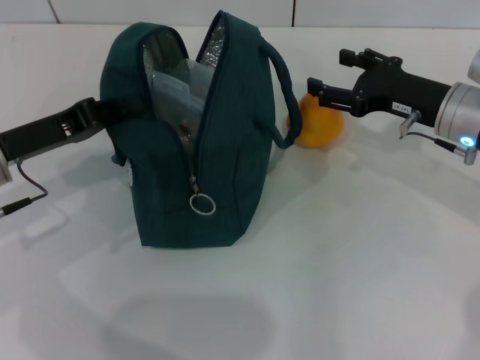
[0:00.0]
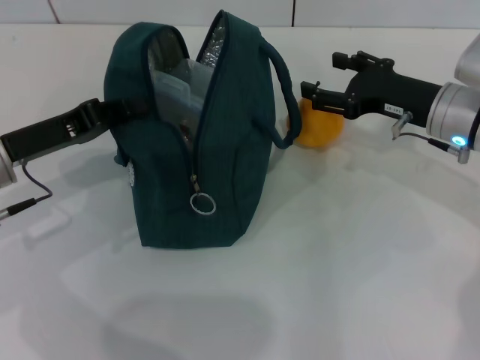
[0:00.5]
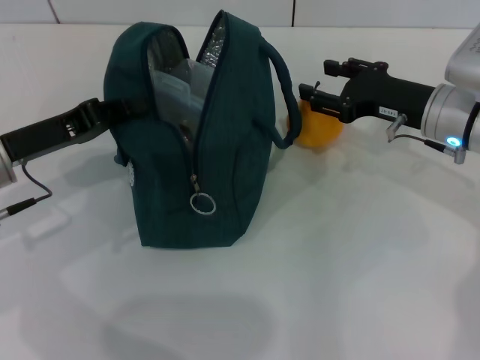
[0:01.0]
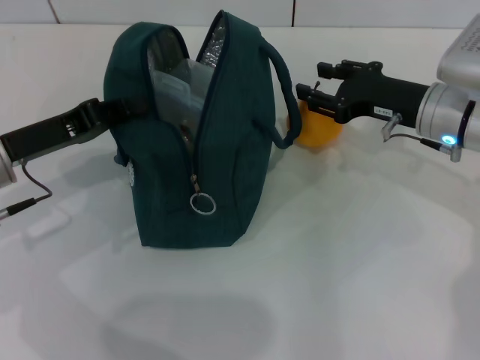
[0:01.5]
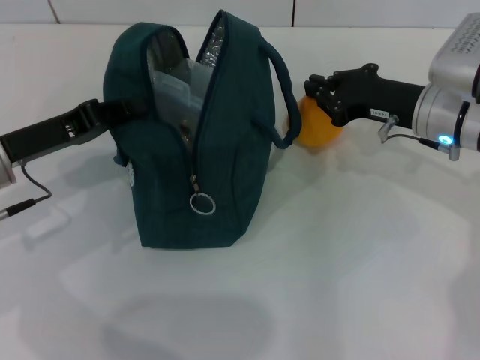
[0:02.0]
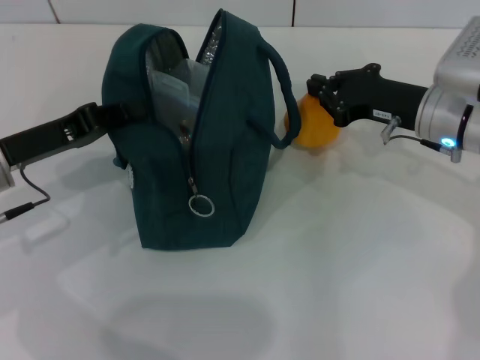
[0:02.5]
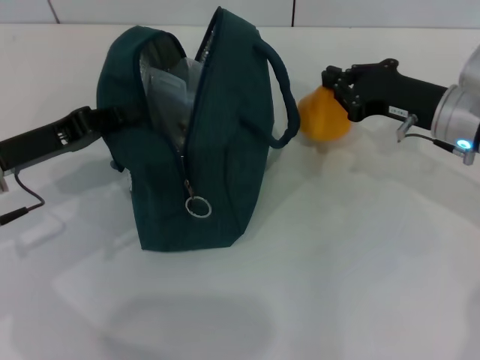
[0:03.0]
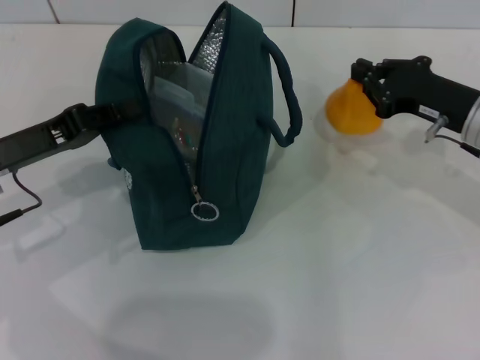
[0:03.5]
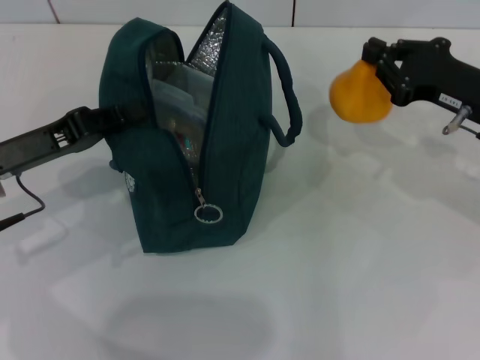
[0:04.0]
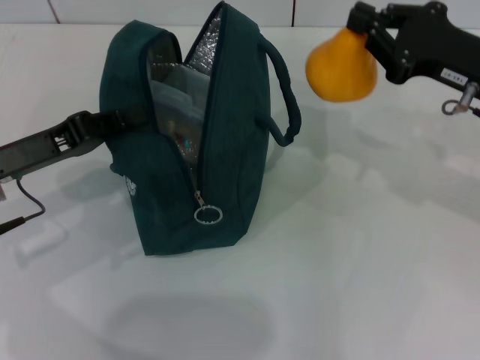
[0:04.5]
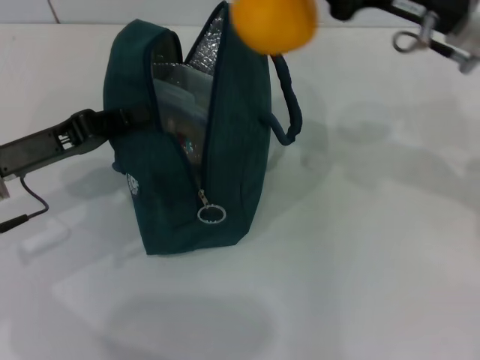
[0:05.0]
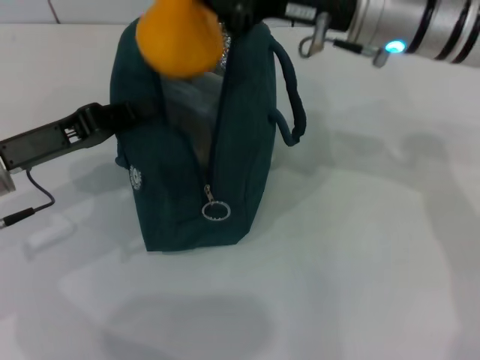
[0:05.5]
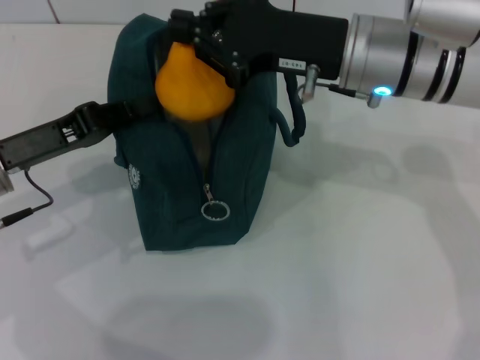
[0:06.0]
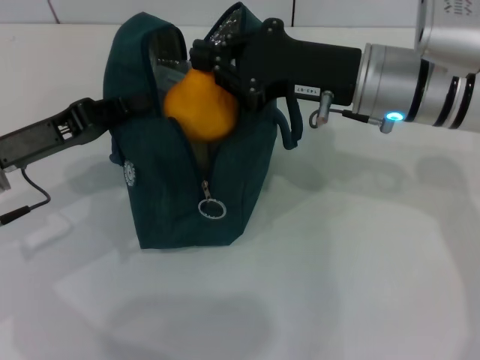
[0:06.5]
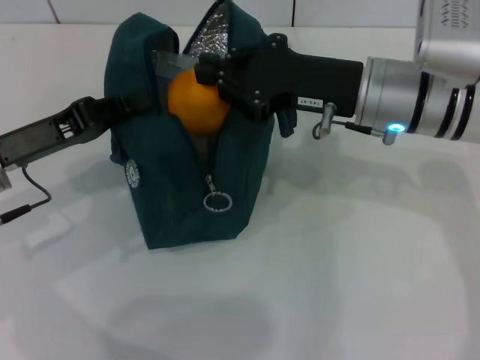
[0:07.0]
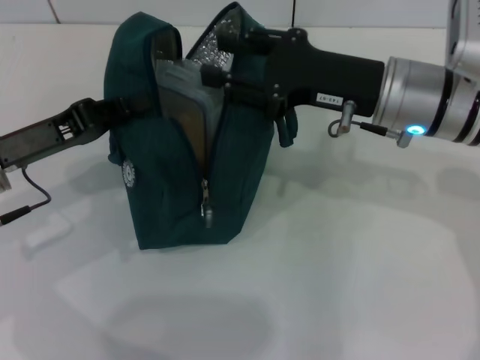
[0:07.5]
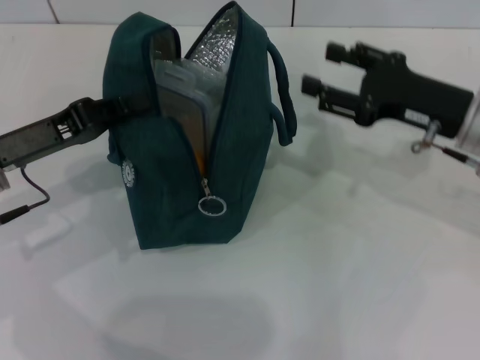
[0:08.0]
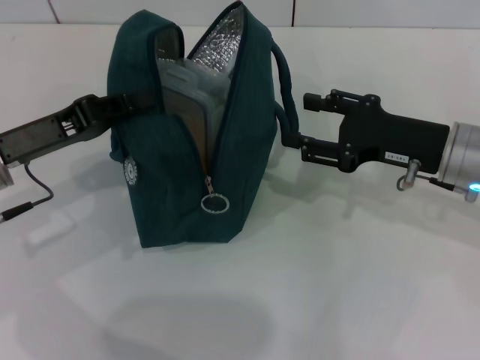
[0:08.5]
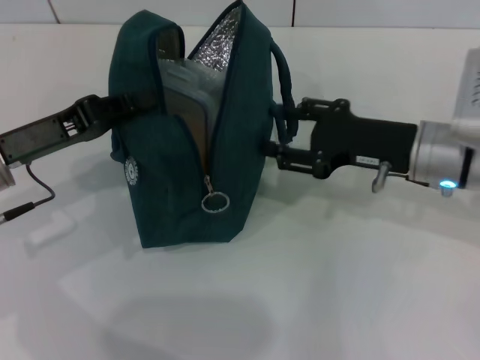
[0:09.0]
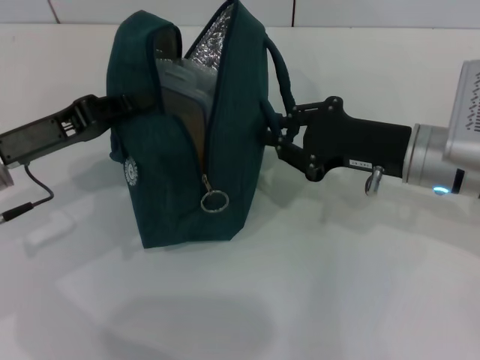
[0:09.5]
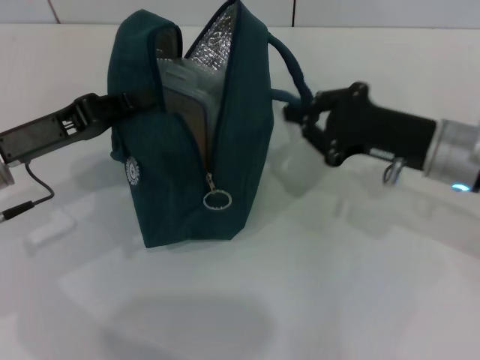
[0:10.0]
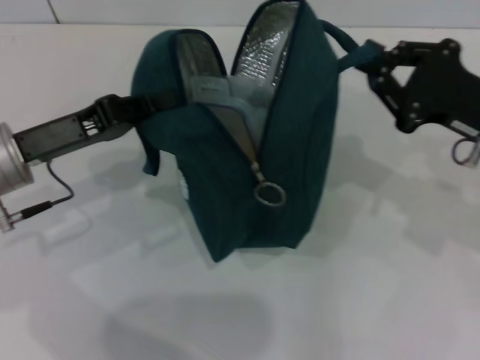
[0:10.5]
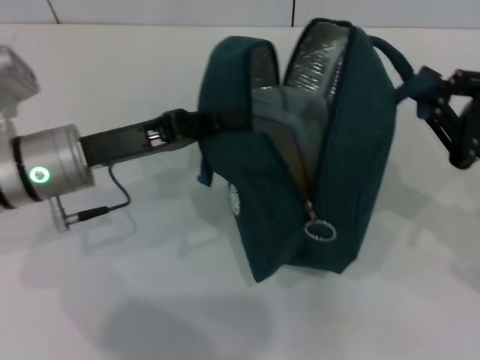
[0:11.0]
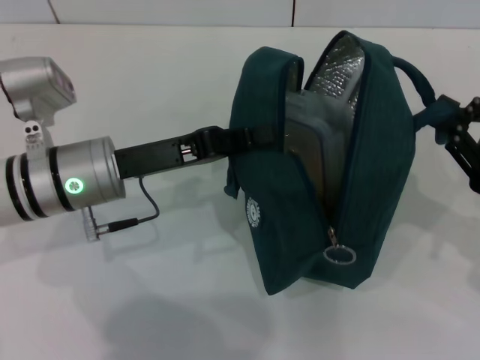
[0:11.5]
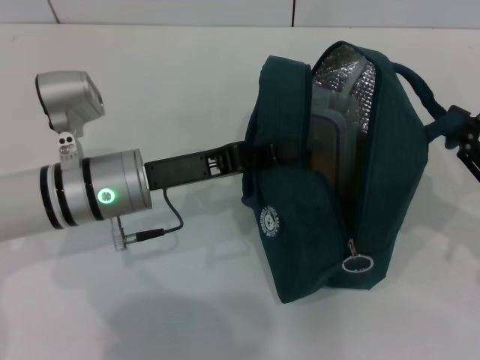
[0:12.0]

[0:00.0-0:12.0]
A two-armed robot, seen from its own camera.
Step, 0:00.0 to 0:02.0: Grab the pear with your right hand.
0:00.0 to 0:02.0: The right gripper closes its fingers.
0:02.0 to 0:04.0: The right gripper travels to the right by about 5 cm.
0:04.0 to 0:06.0: The right gripper shifts approximately 15 cm to the left and upward.
0:06.0 to 0:08.0: The right gripper is displaced to the right and downward by approximately 15 cm, and opens up.
0:08.0 to 0:10.0: The right gripper closes up.
0:10.0 to 0:12.0: The right gripper travels to the right and backward by about 15 cm; the left gripper travels to the right by about 10 cm.

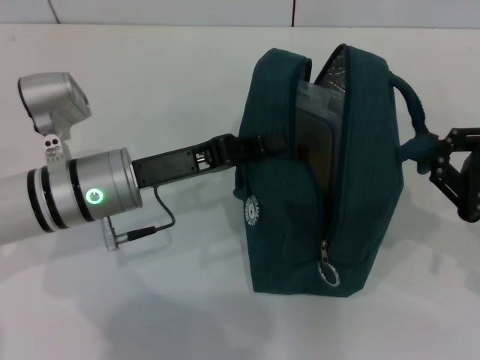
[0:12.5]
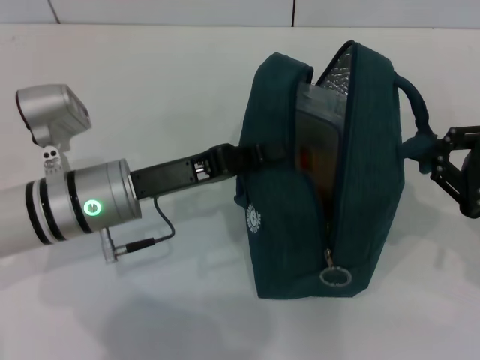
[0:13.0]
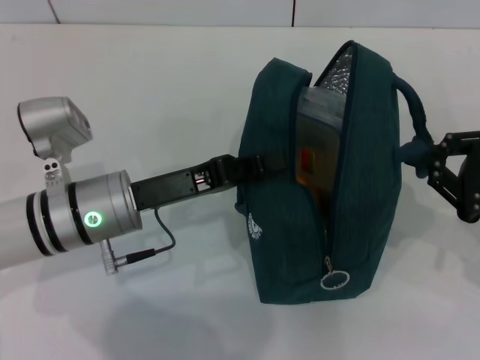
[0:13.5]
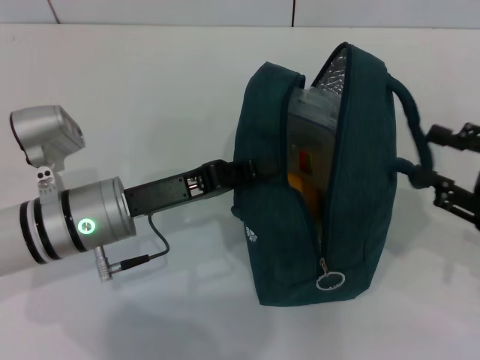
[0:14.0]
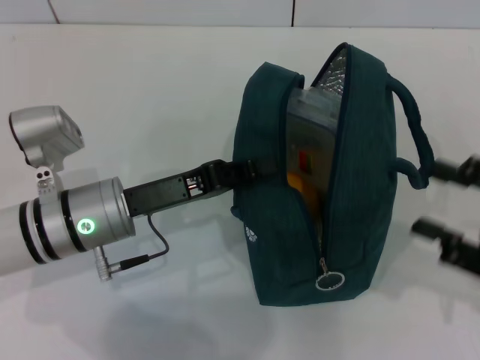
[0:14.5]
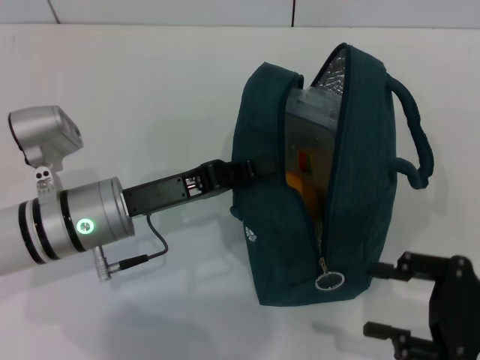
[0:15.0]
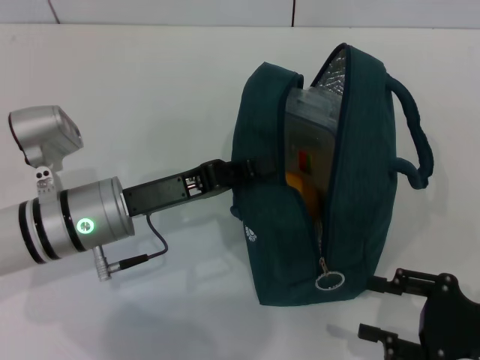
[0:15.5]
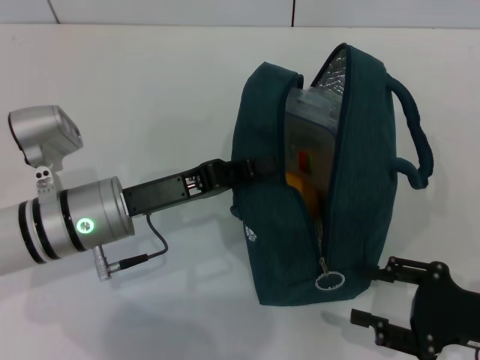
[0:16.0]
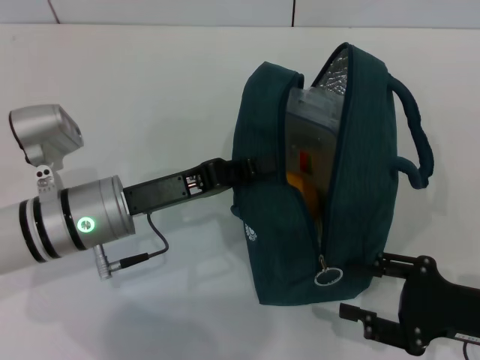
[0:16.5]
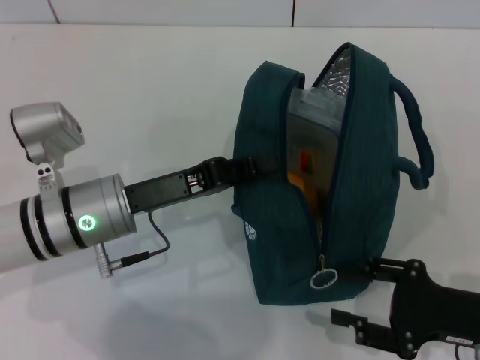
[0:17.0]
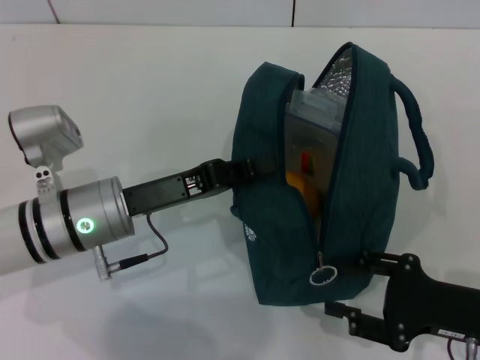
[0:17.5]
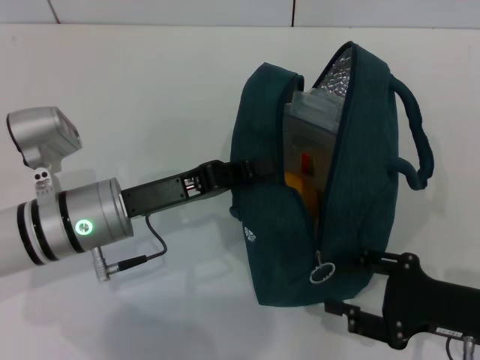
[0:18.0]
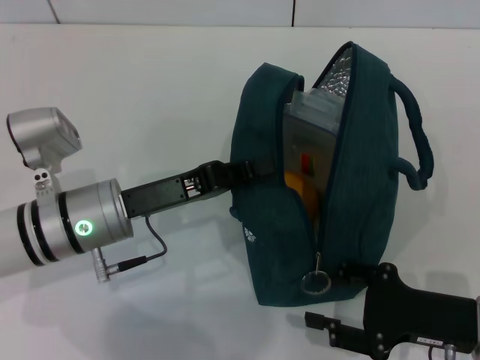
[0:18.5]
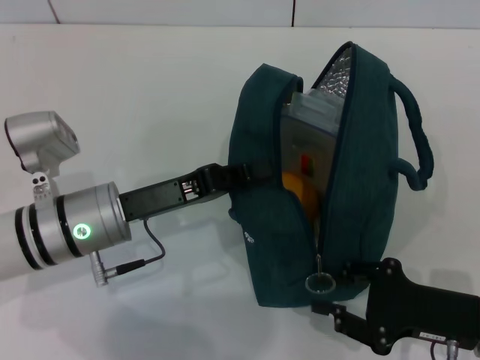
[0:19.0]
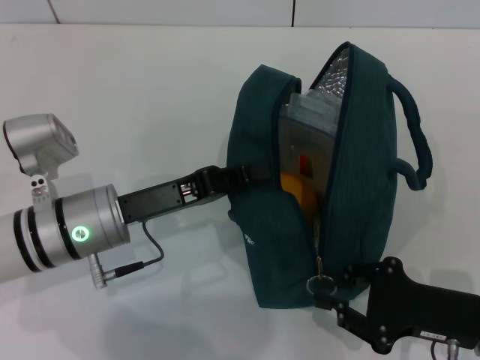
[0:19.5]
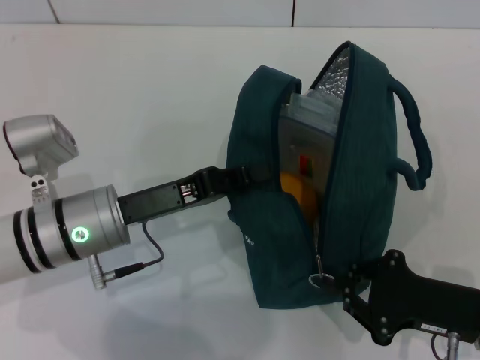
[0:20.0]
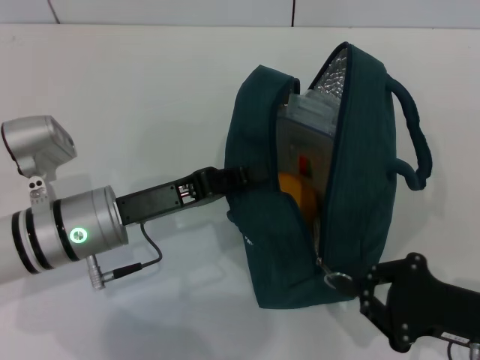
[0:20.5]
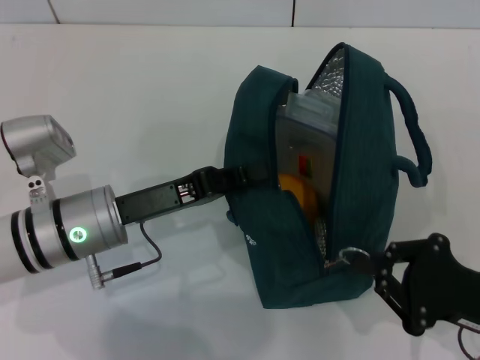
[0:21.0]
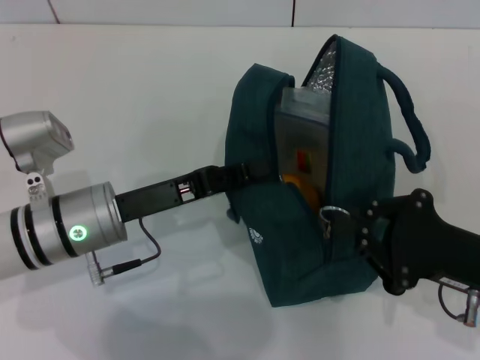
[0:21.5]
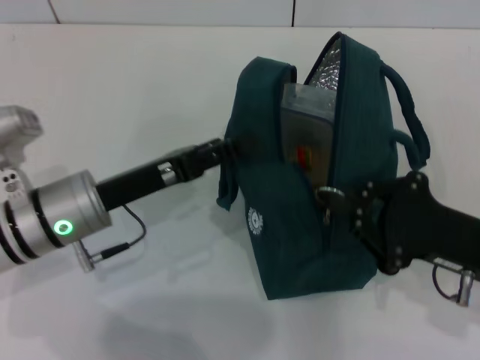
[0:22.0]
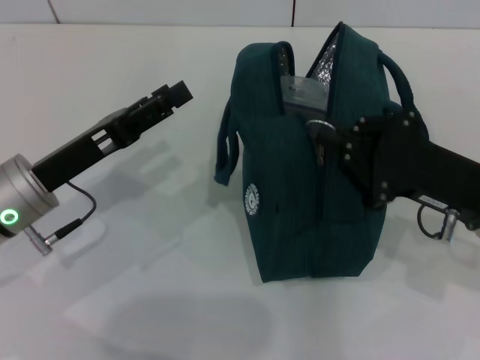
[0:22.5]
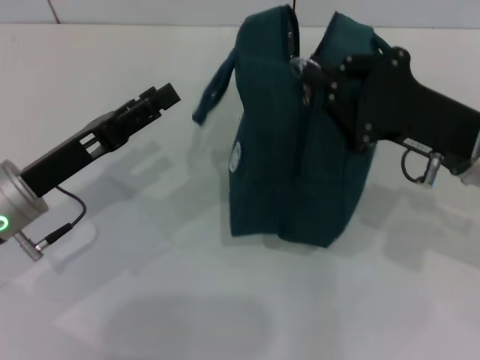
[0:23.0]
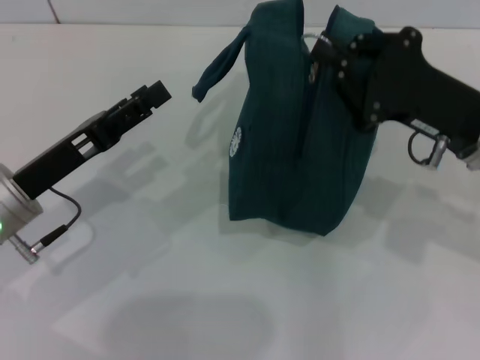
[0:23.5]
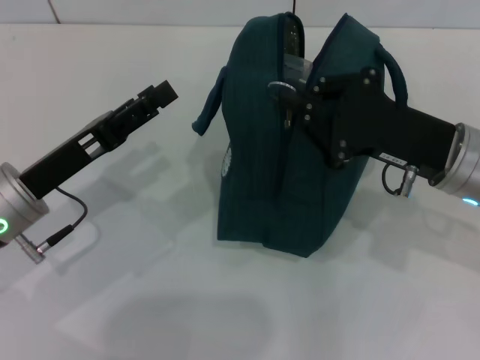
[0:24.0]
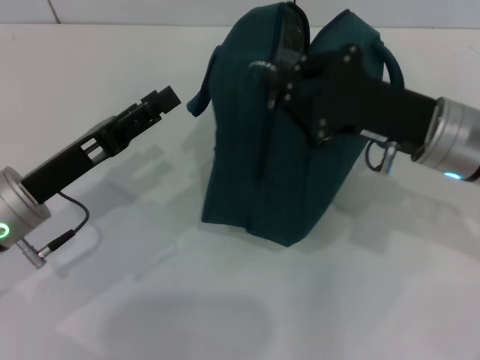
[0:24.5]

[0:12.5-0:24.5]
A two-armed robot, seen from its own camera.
0:12.5 to 0:14.5: The right gripper opens.
0:14.5 to 0:16.5: The right gripper heads downward, covering roughly 10 cm.
0:16.5 to 0:18.5: There are only small adjustments of the grippers.
0:18.5 to 0:20.5: The right gripper closes.
0:20.5 to 0:22.5: The right gripper travels forward and upward by about 10 cm; the left gripper shifts approximately 5 cm to the left, and opens.
0:22.5 to 0:24.5: The right gripper heads forward, covering about 5 cm.

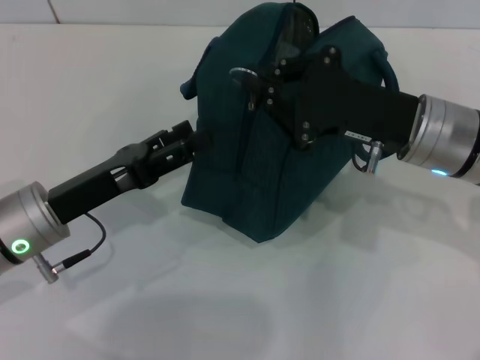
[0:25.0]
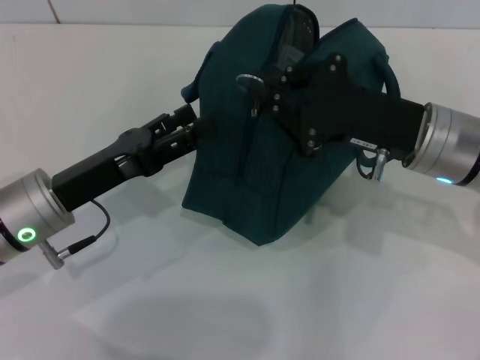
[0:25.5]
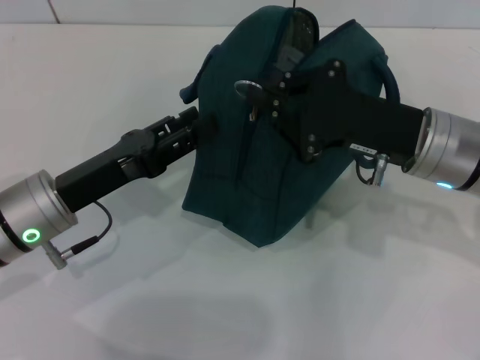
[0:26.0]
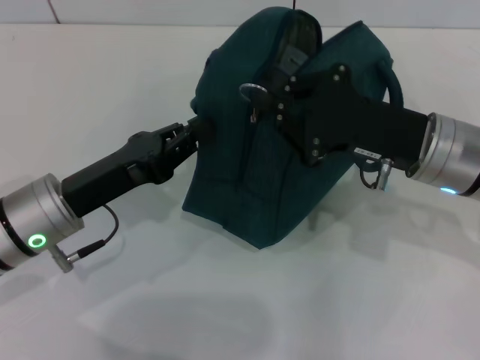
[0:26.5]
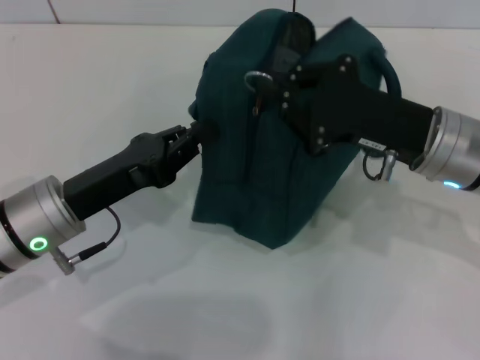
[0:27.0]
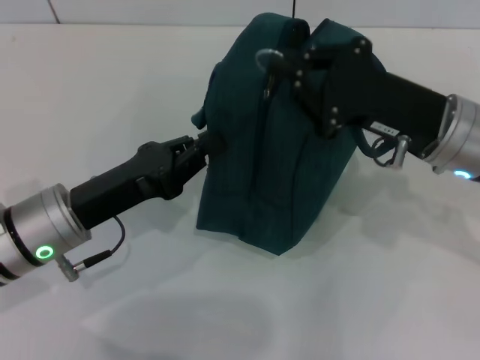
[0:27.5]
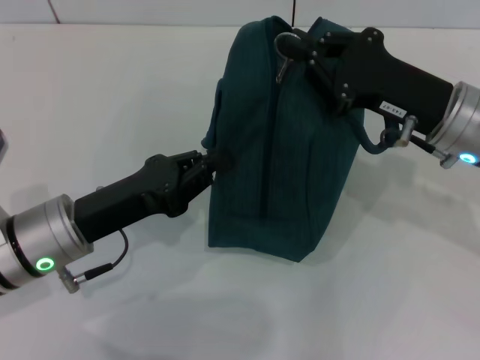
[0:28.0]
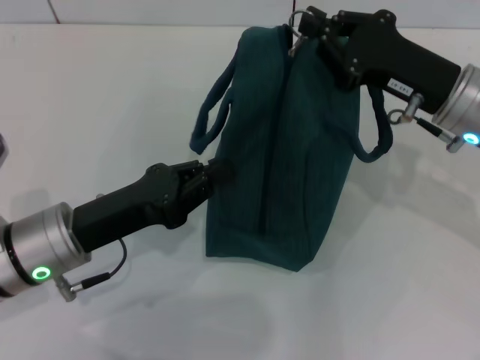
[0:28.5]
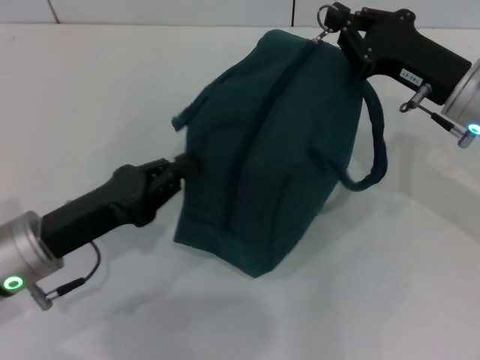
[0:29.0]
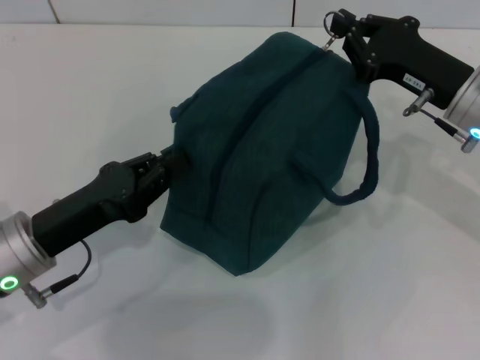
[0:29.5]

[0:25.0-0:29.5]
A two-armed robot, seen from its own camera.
0:25.0 to 0:27.0: The left gripper closes its fingers.
0:27.0 to 0:29.5: The right gripper moves some 5 cm.
